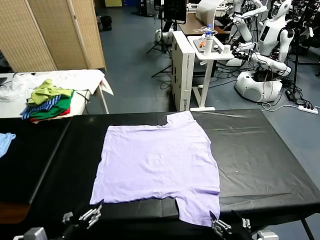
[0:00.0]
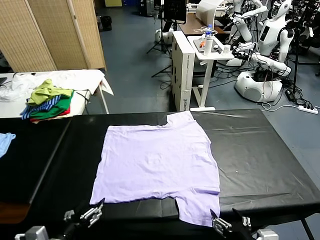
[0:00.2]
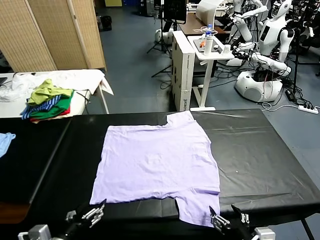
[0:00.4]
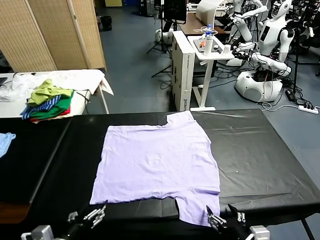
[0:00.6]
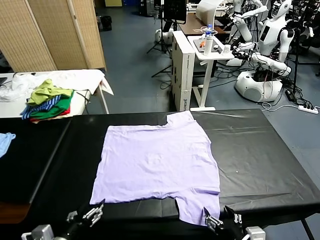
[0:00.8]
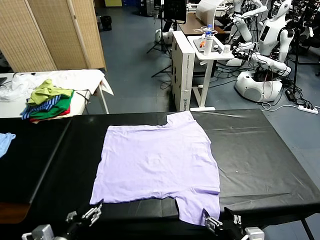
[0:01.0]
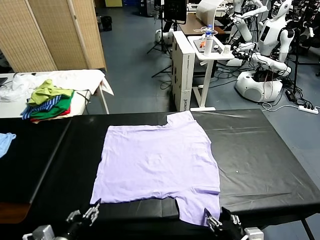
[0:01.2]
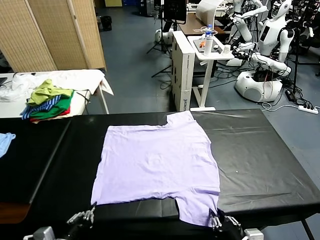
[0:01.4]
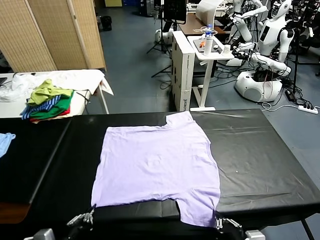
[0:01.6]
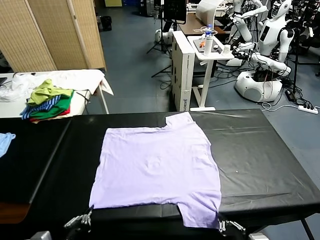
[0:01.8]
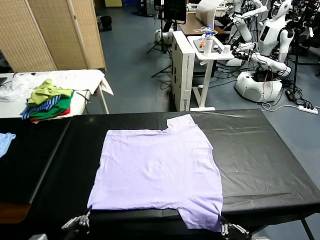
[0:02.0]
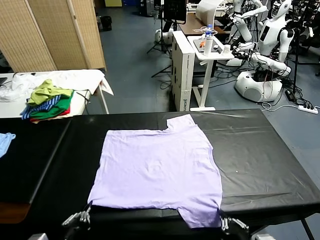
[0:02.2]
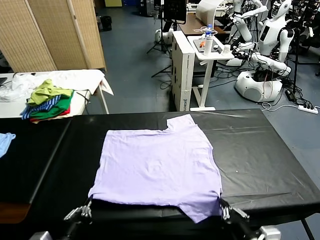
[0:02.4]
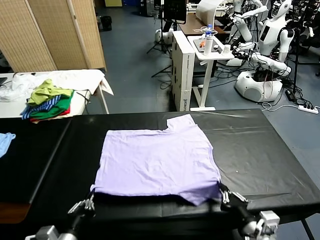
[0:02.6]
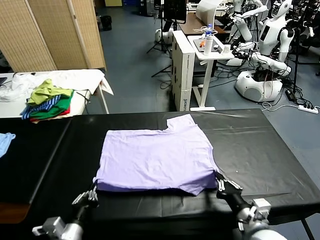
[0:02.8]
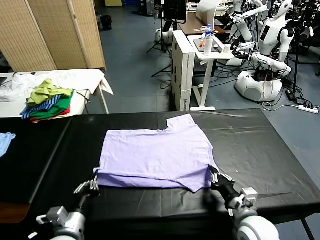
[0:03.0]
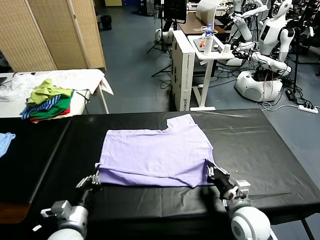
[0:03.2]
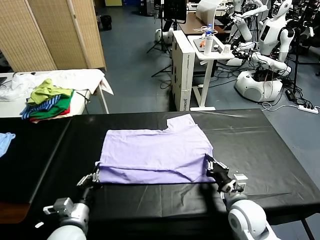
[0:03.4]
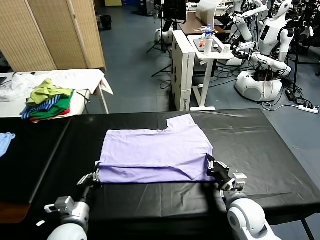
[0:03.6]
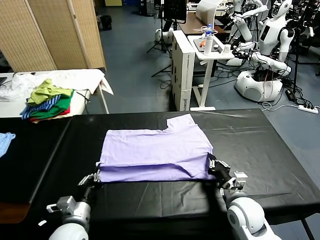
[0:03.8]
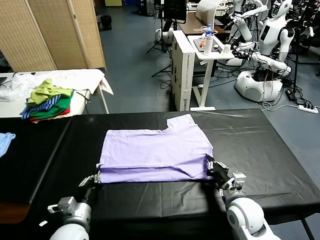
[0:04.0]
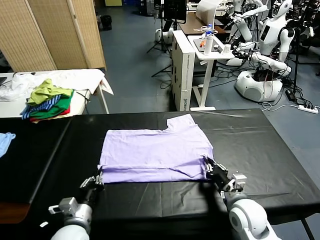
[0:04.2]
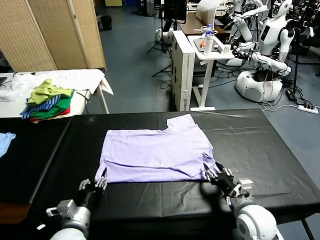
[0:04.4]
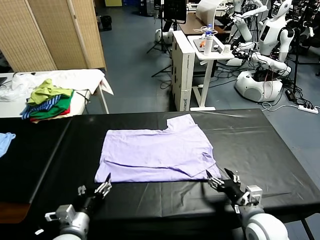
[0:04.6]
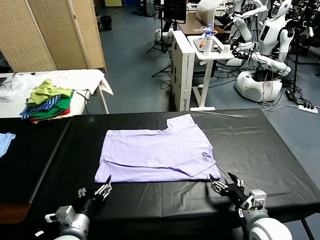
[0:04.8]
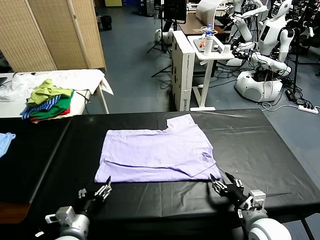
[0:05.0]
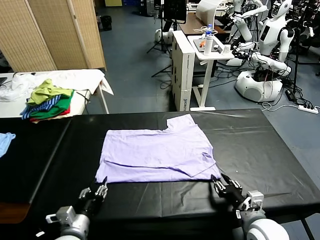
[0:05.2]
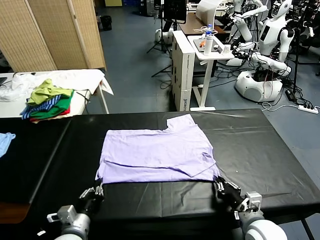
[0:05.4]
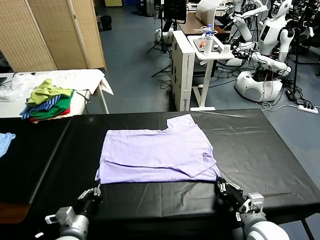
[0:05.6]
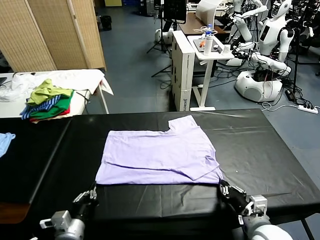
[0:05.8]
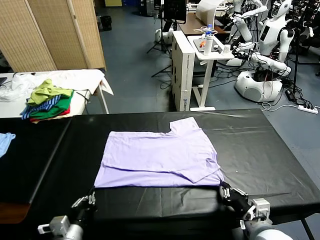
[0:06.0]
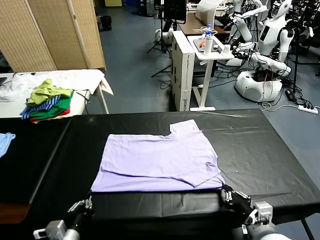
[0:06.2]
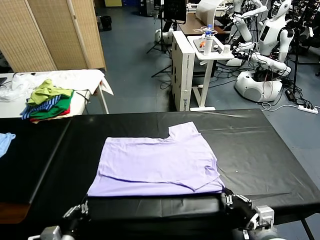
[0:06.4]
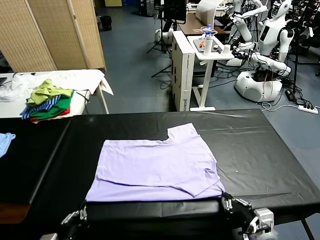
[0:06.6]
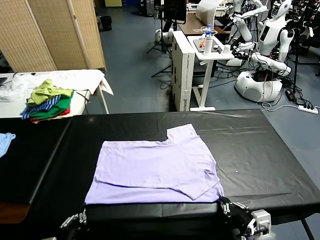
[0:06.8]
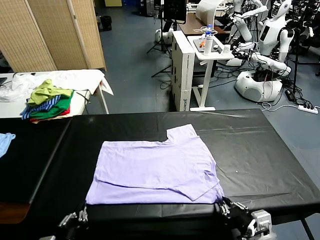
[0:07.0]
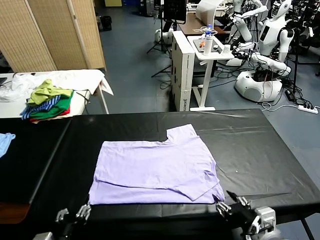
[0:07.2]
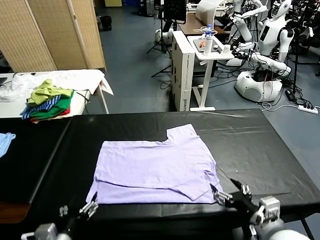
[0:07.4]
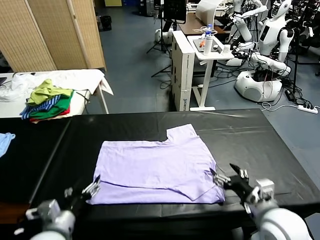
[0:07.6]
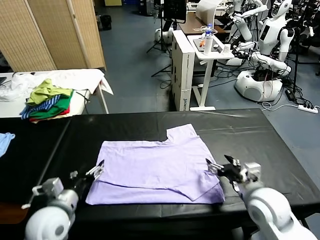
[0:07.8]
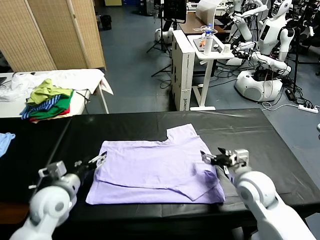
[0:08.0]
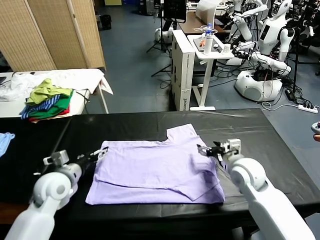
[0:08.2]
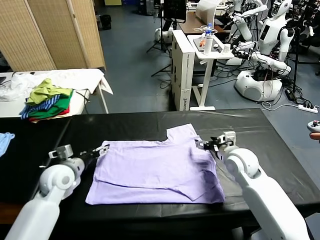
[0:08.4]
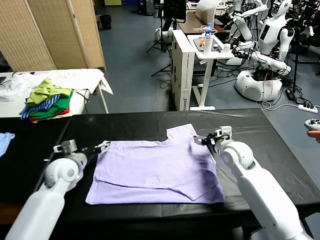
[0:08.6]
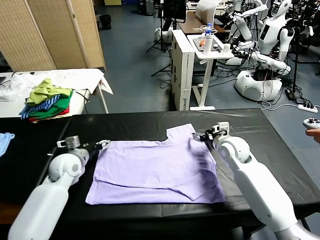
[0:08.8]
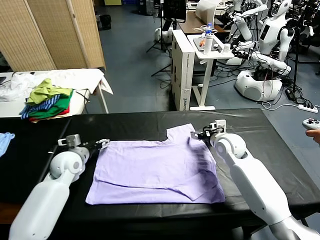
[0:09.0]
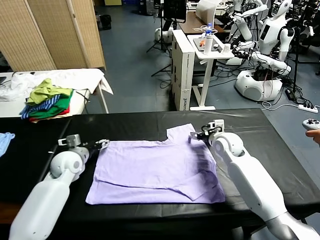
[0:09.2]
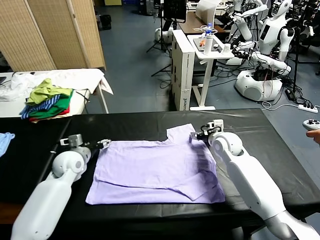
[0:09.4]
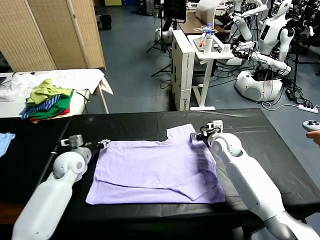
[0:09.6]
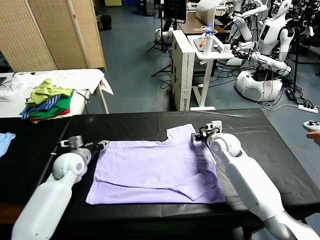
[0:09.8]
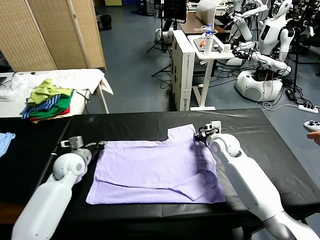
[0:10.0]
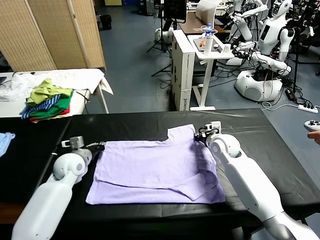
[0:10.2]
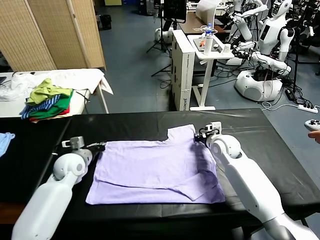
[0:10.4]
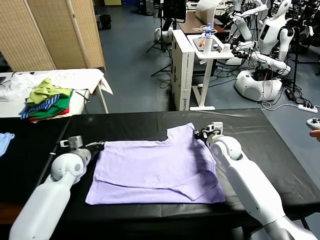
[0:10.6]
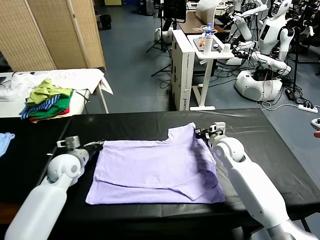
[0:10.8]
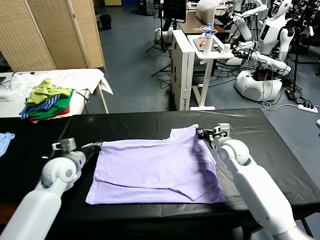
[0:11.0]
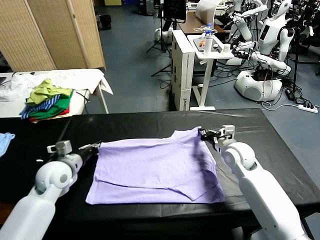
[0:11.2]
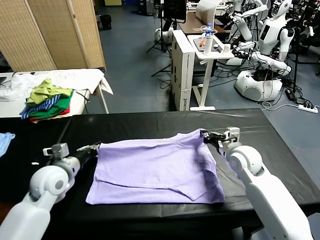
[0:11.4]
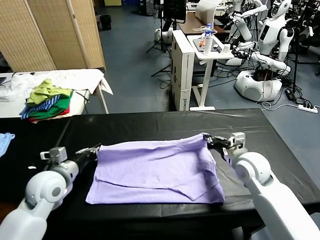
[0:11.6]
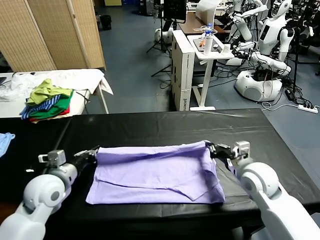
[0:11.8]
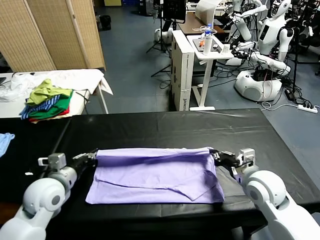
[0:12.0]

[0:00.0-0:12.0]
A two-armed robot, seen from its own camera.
Task of the whole recording: fold and organize the clothes.
Step, 0:00.0 to 0:01.8: use both grippers simultaneously to clamp the lower edge of the clothing fabric.
Step, 0:02.0 to 0:04.2: use both grippers to drag the lower edge of the fabric forward and fold it over the upper edge.
Step, 0:04.4 to 0:07.0: Drag the clothes downward with both gripper.
Step, 0:07.2 to 0:10.6: use both grippers simultaneously to clamp the upper edge of the clothing fabric.
0:01.6 to 0:03.0: The right gripper is displaced forward by roughly 15 cm; the left gripper heads forward, covering roughly 5 cm.
0:03.0 to 0:04.4: The left gripper opens up; the right gripper opens its fingers.
0:04.4 to 0:06.0: The right gripper shifts roughly 5 cm backward, and closes up. The left gripper closes.
0:06.0 to 0:07.6: The left gripper shifts about 5 cm upward, and opens up. Meanwhile the right gripper goes approximately 10 cm forward, and opens.
0:07.6 to 0:09.0: The two grippers go approximately 25 cm forward.
0:09.0 to 0:10.4: The left gripper closes its fingers, while the right gripper closes.
0:10.4 to 0:12.0: The left gripper moves backward and upward, some 15 cm, while the right gripper is displaced backward by roughly 20 cm.

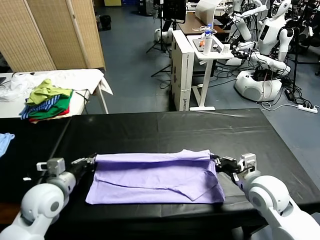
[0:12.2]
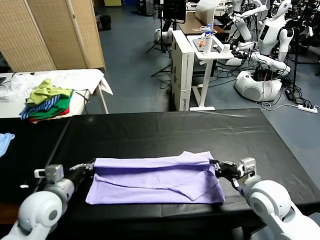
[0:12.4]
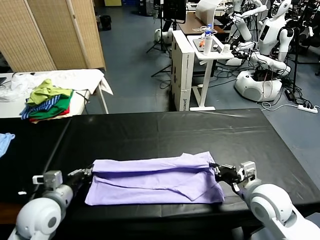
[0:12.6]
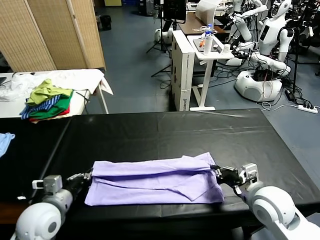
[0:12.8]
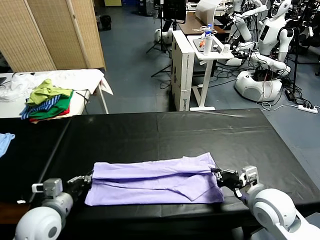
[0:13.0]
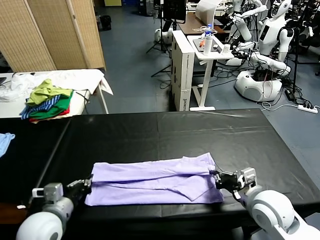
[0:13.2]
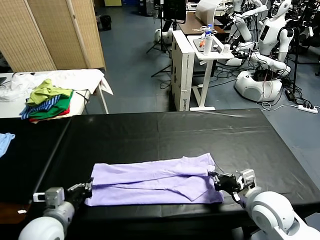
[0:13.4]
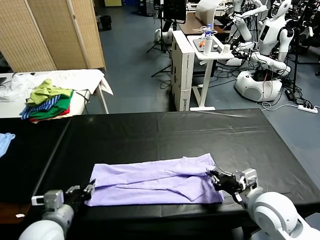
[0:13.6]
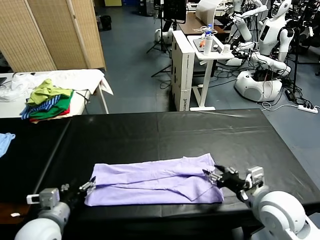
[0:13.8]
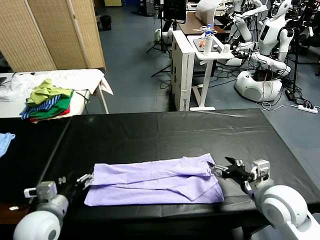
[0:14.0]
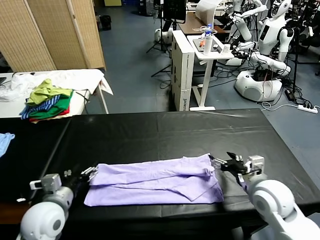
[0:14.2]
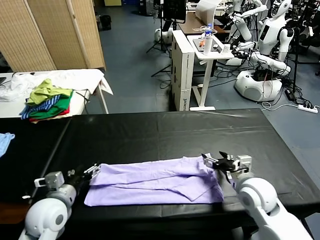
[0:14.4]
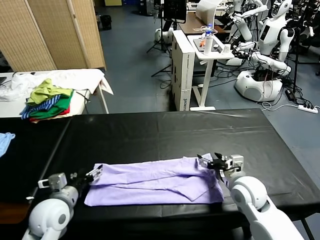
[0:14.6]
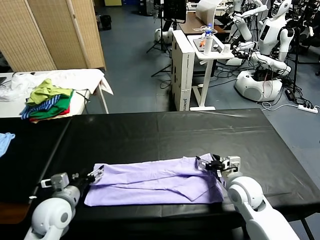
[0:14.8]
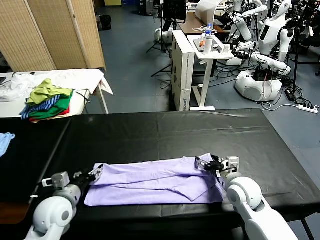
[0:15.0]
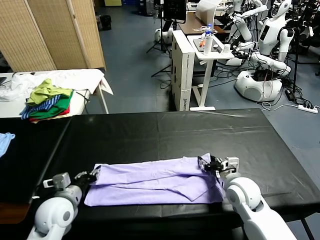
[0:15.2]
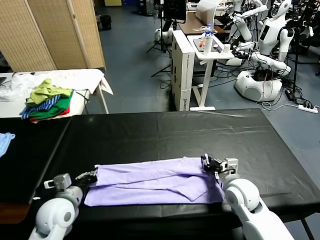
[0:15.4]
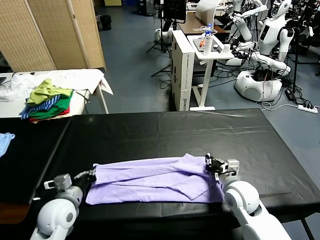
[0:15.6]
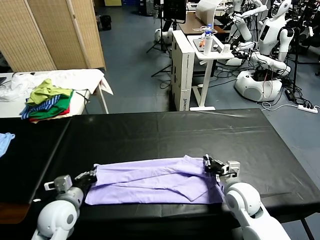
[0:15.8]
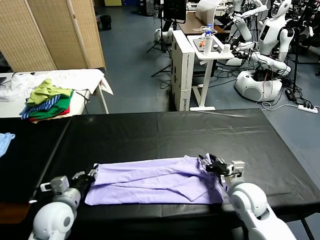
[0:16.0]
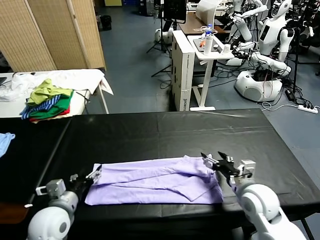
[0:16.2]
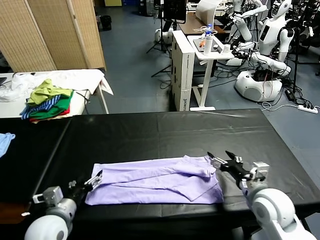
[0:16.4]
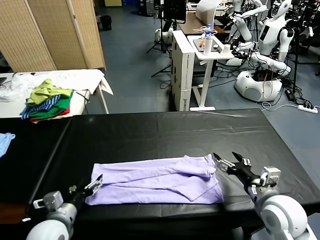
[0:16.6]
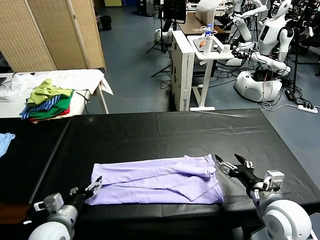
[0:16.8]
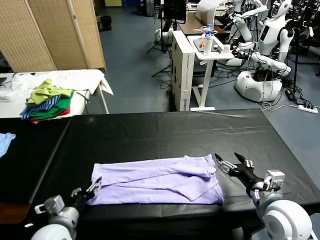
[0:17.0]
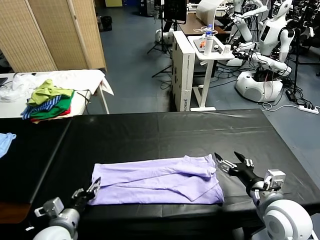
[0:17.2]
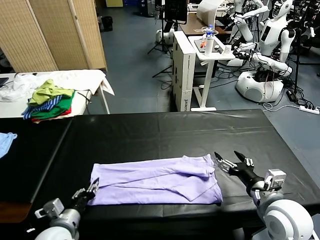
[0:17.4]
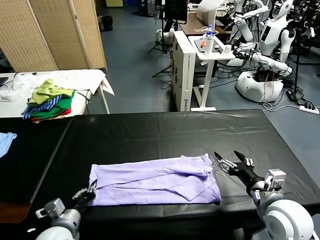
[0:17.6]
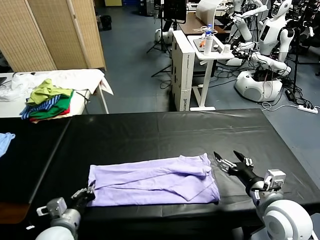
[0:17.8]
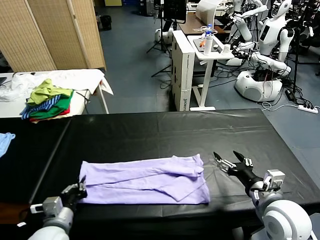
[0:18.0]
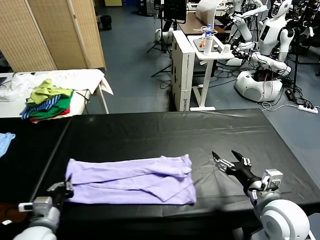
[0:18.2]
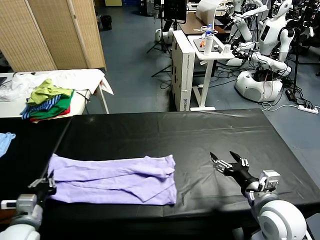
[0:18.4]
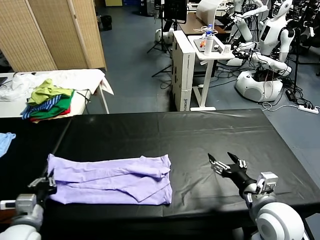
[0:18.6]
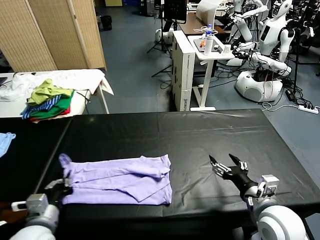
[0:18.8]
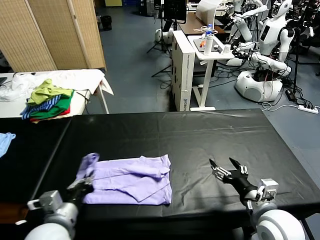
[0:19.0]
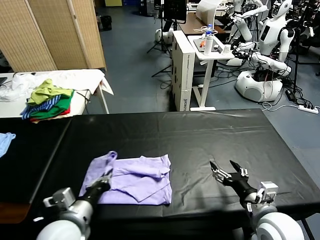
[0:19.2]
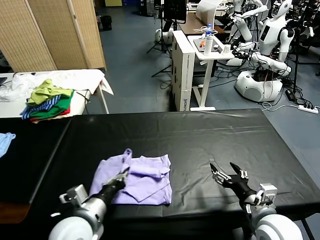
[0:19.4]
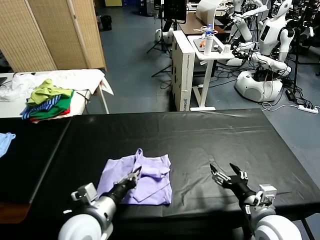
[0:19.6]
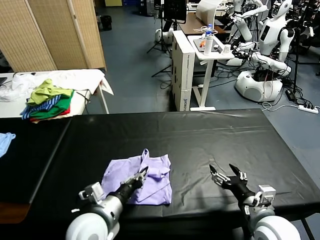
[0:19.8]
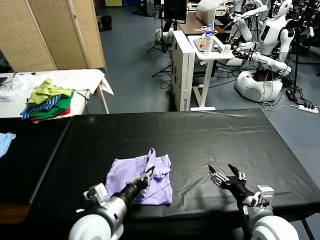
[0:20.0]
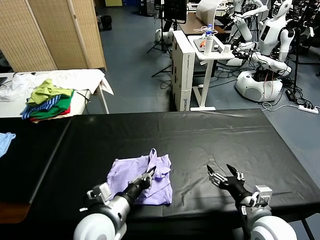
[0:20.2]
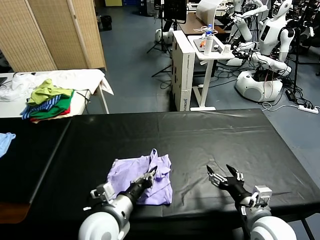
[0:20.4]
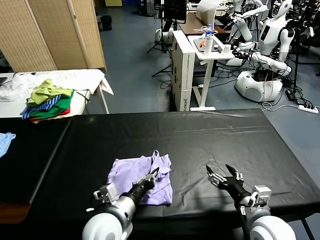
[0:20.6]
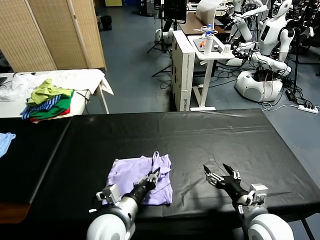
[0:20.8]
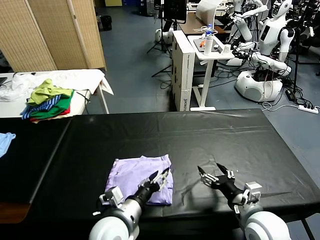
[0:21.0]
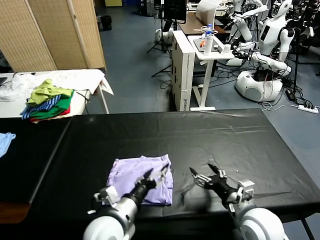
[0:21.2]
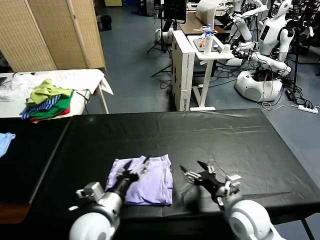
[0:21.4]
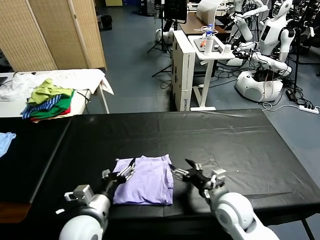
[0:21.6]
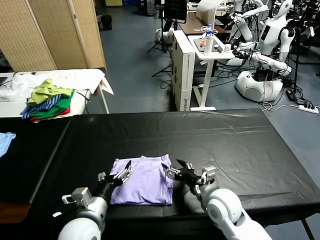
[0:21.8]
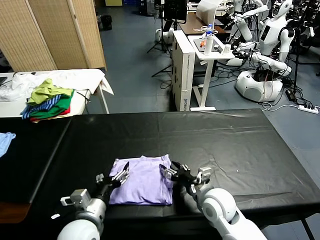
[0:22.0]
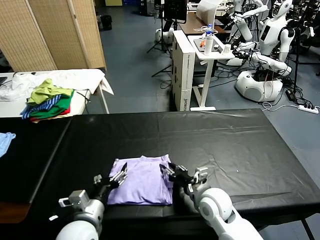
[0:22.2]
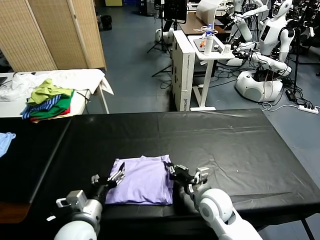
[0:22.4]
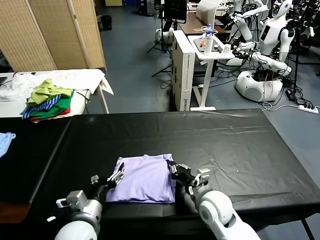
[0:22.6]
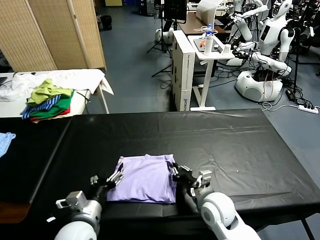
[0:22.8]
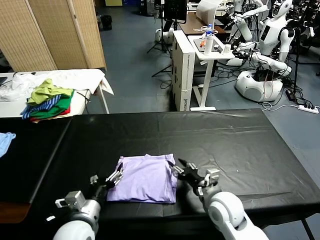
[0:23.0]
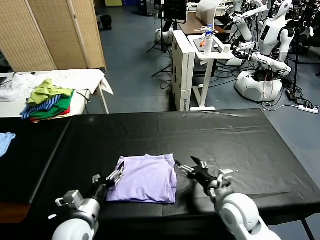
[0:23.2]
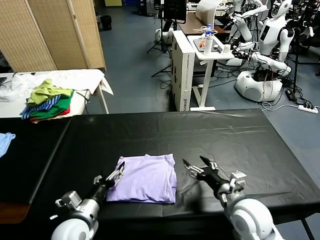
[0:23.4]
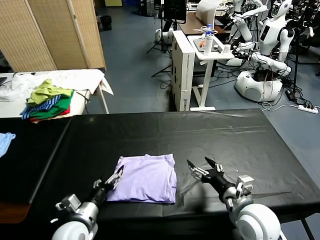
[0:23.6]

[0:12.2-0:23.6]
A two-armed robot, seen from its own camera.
Task of the whole recording: fold and organize the clothes.
Step, 0:12.2 to 0:13.6: use both grippers to drag the upper edge of the fabric backward and fold it over the lower edge.
Step, 0:13.8 to 0:18.0: use the left gripper to clamp the left edge of the fabric.
Step, 0:18.2 to 0:21.0: use the left gripper to drag the left edge of the fabric to the left and folds it over the right edge.
0:12.2 to 0:13.6: The right gripper opens up. The left gripper heads backward, covering about 10 cm, and opens up.
0:13.6 to 0:15.0: The right gripper heads forward and downward, covering some 10 cm, while the left gripper moves forward, about 5 cm, and opens.
0:15.0 to 0:16.4: The left gripper shifts roughly 5 cm backward, and closes and opens again; the right gripper travels backward and upward by roughly 10 cm, and closes and opens again.
0:16.4 to 0:17.8: The left gripper closes its fingers.
0:17.8 to 0:19.4: The left gripper is displaced to the right and upward by approximately 10 cm.
0:19.4 to 0:20.8: The left gripper goes some 5 cm to the right.
0:20.8 to 0:22.2: The left gripper travels to the left by some 5 cm, and opens up; the right gripper moves to the left, forward and downward, some 15 cm, and closes up.
0:22.2 to 0:23.6: The left gripper is displaced downward by roughly 5 cm; the right gripper goes some 10 cm to the right, backward and upward, and opens up.
